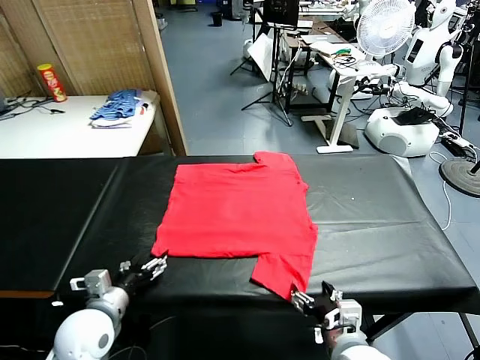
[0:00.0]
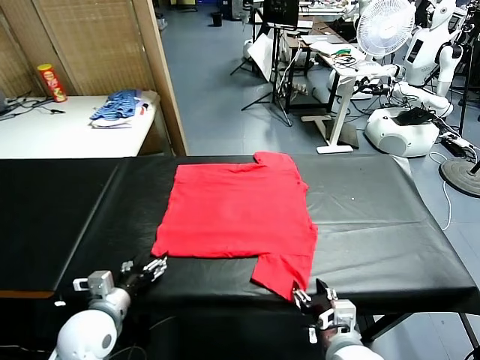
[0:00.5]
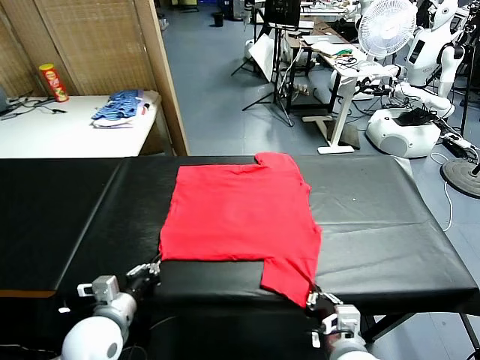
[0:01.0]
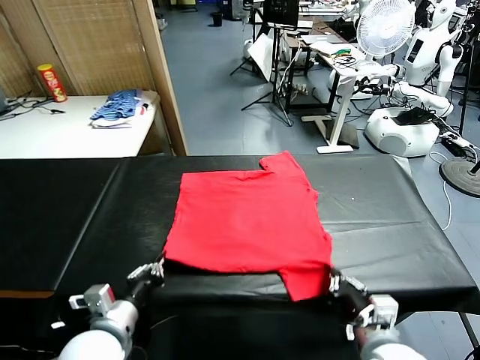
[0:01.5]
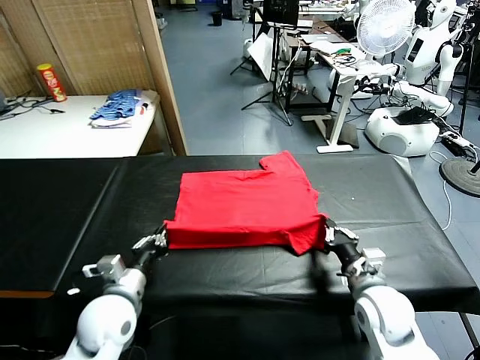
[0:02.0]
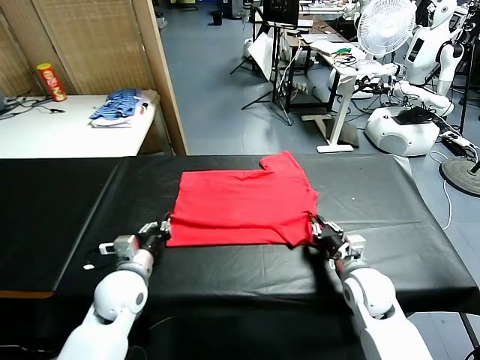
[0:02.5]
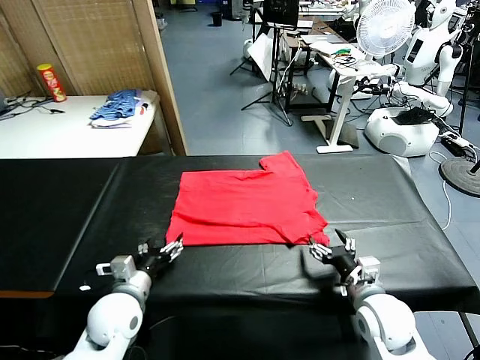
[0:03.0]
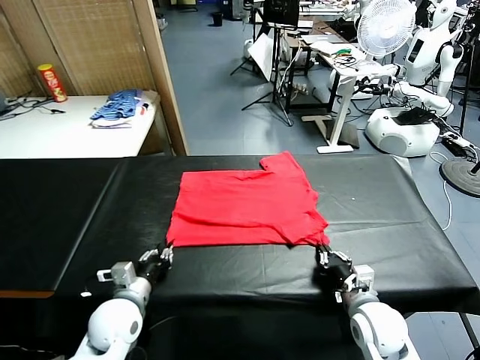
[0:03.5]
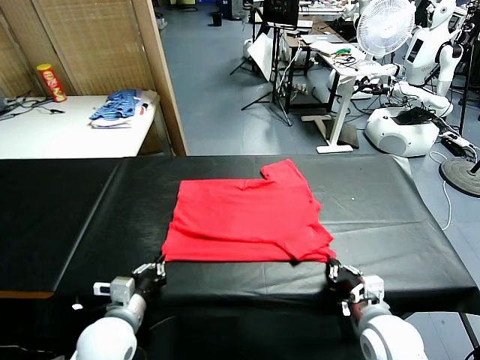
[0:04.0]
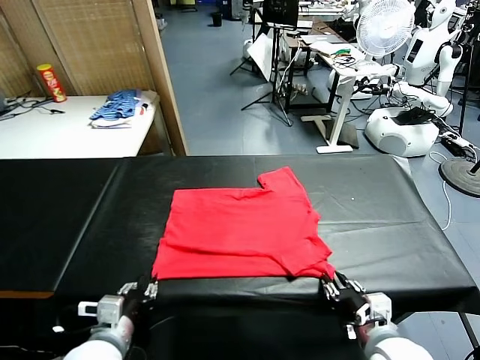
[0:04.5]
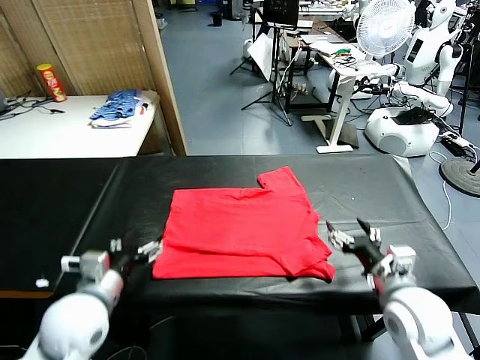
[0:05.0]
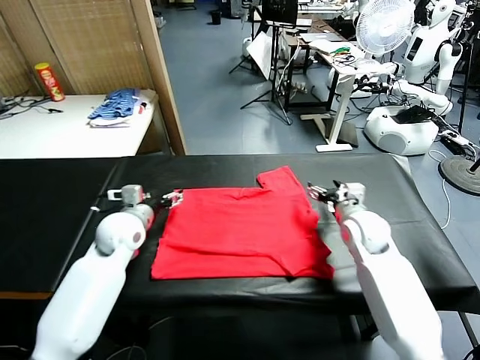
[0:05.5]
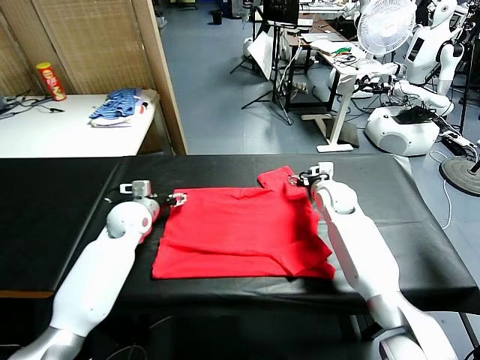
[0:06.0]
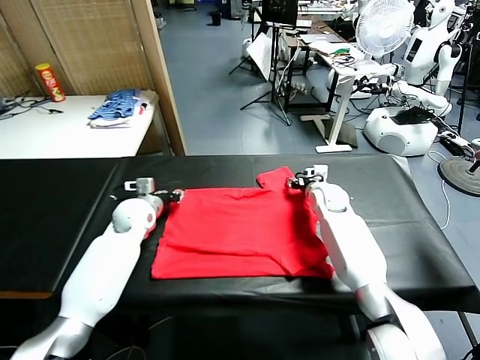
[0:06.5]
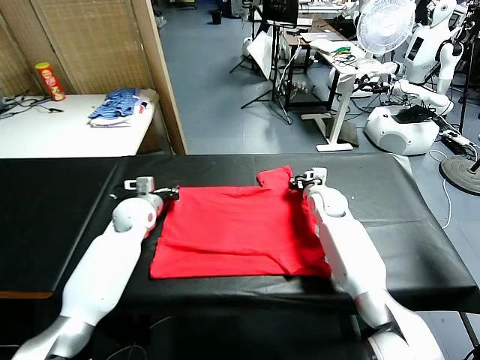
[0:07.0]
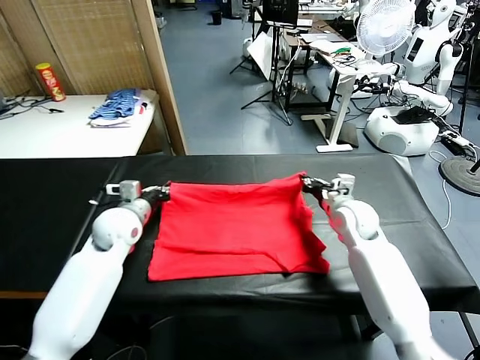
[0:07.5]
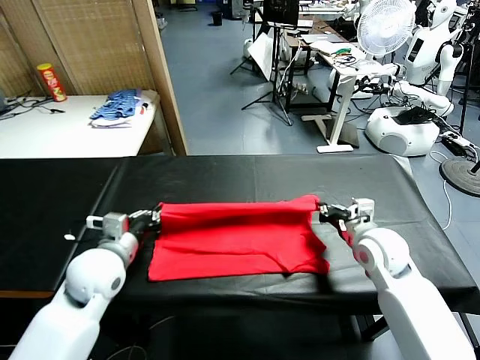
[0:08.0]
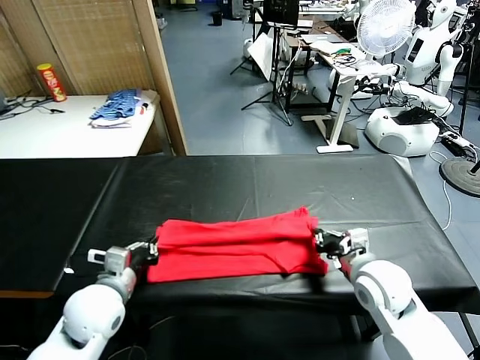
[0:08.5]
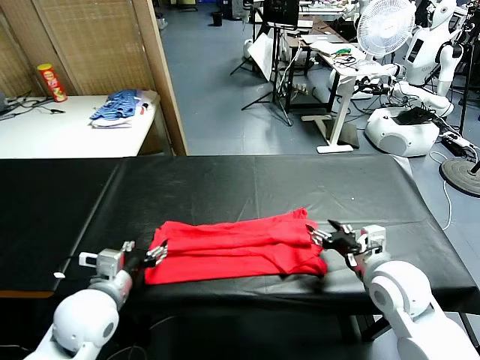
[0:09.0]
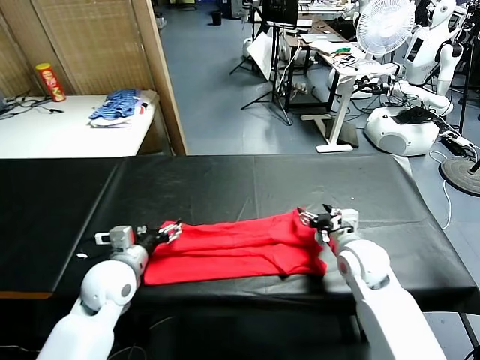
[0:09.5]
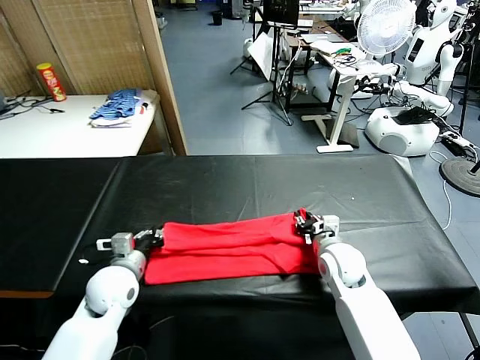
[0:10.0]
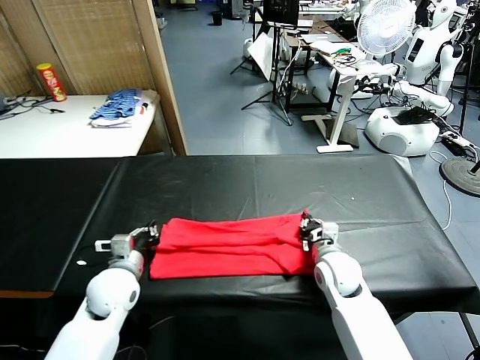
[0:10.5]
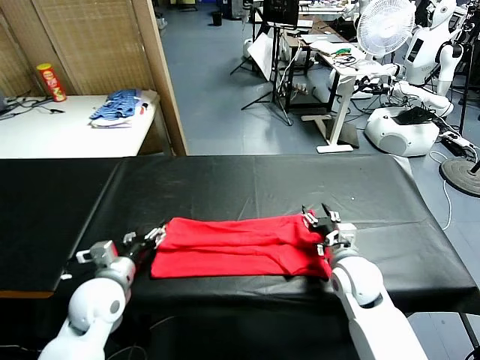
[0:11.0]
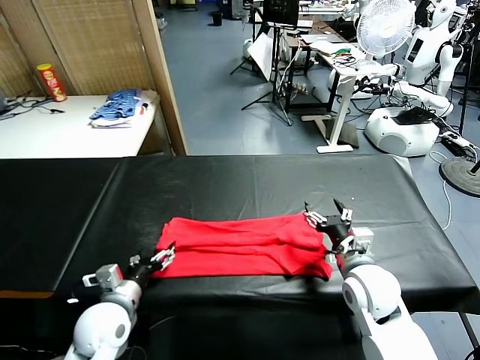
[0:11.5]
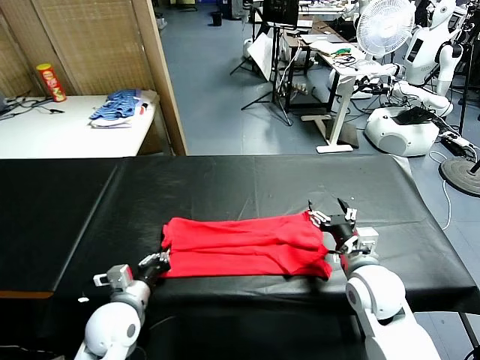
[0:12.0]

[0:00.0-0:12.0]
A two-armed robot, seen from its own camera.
Task of the whole recording: fold and organize the clothes.
Step, 0:00.0 to 0:01.0: use both grippers simultaneously to clamp the lower edge of the clothing fabric.
Step, 0:01.5 to 0:02.5: use both grippers to drag the lower edge of the fabric forward and fold it over the upper edge.
Step, 0:03.0 to 0:04.5: Drag the clothes downward with both gripper.
Step, 0:05.0 to 0:07.0: use both grippers simultaneously to clamp the upper edge of the clothing fabric.
Step, 0:07.5 to 0:09.0: use both grippers to drag the upper edge of the fabric backward and fold it over the lower edge.
0:02.0 to 0:04.0: The left gripper goes forward and returns, roughly 5 cm each way, and opens and closes again. The right gripper is displaced backward by approximately 10 cm, and opens and closes again.
0:04.0 to 0:06.0: Both grippers move forward, some 30 cm. The left gripper opens up, while the right gripper opens its fingers.
0:06.0 to 0:08.0: The grippers both shift backward by about 20 cm. The left gripper closes its fingers, while the right gripper closes up.
0:08.0 to 0:10.0: The left gripper goes some 10 cm downward, goes backward and returns, some 10 cm each way, and opens and closes again; the right gripper shifts roughly 10 cm downward and to the left, and opens, then closes once more.
0:10.0 to 0:12.0: The left gripper shifts approximately 5 cm backward, and opens, then closes again, while the right gripper goes approximately 10 cm backward and upward, and opens up.

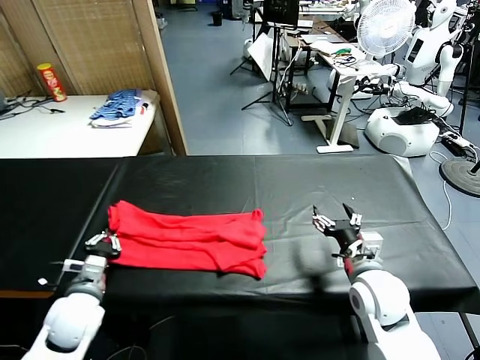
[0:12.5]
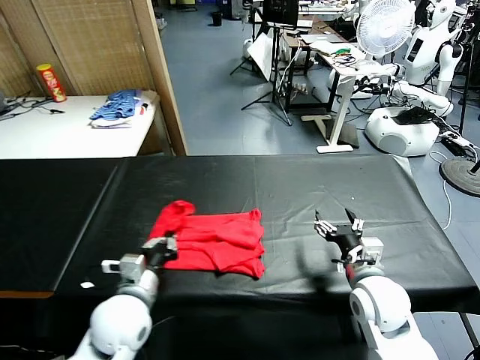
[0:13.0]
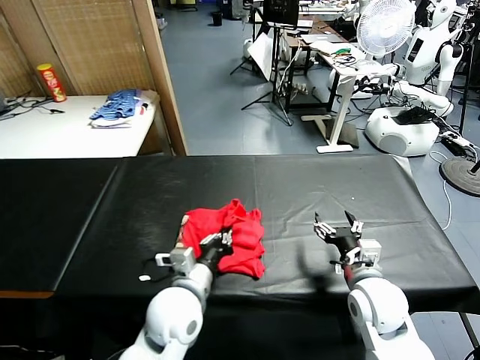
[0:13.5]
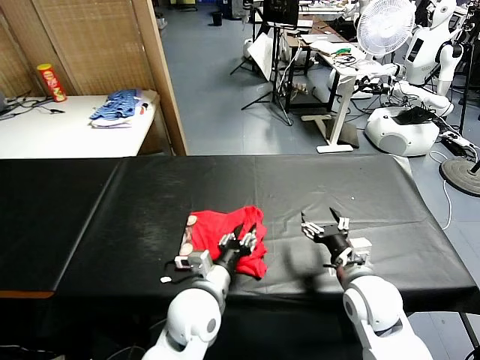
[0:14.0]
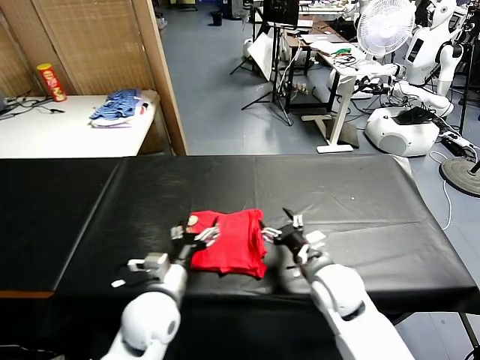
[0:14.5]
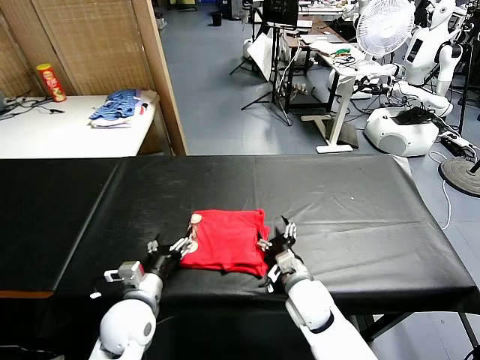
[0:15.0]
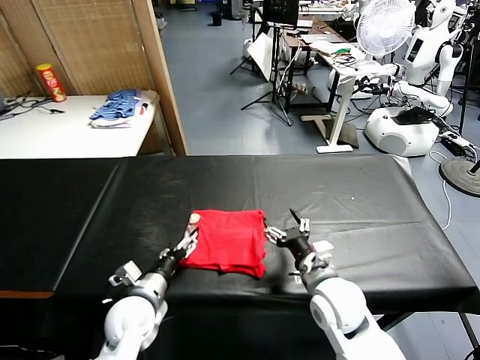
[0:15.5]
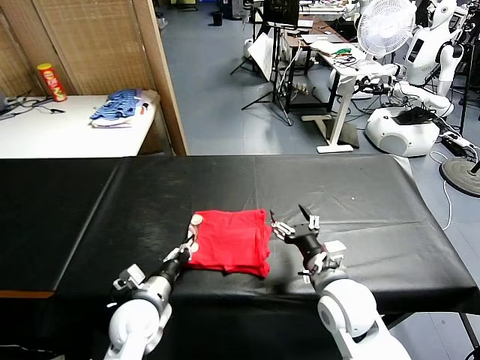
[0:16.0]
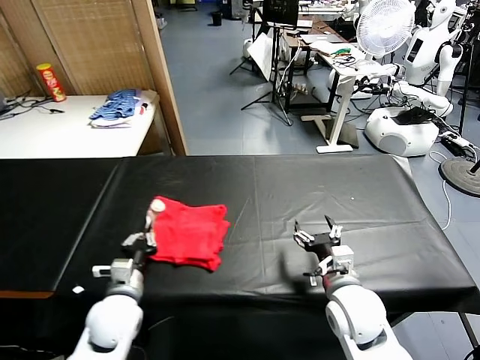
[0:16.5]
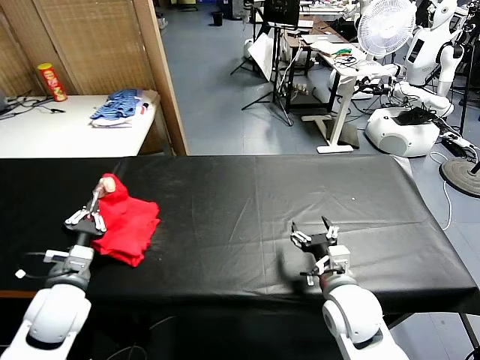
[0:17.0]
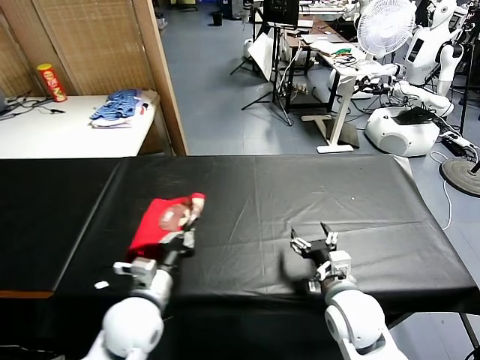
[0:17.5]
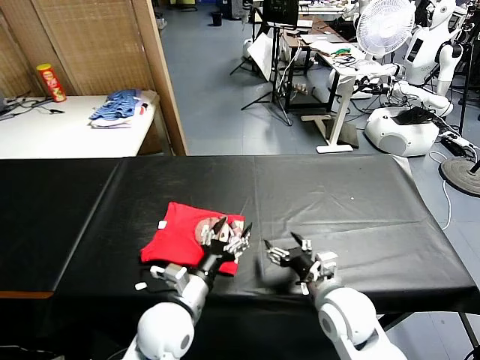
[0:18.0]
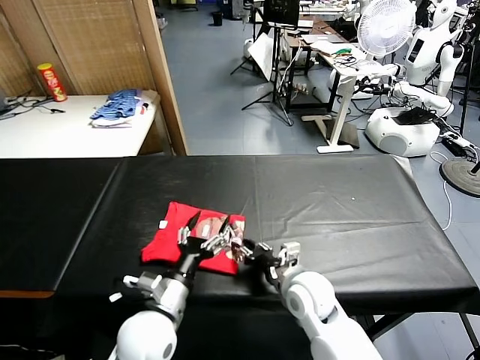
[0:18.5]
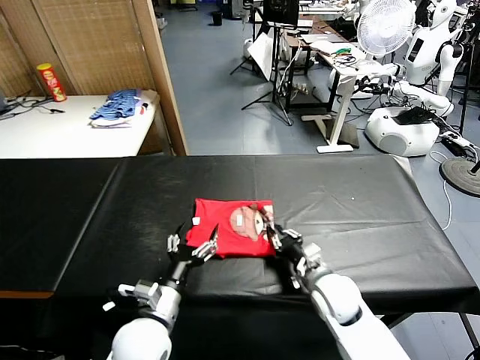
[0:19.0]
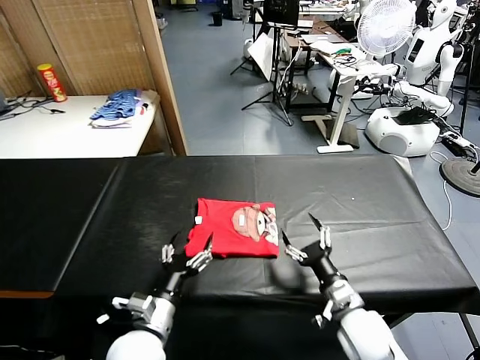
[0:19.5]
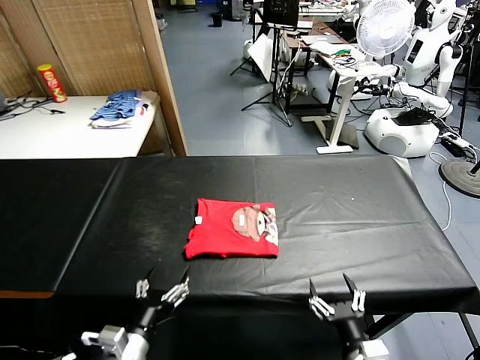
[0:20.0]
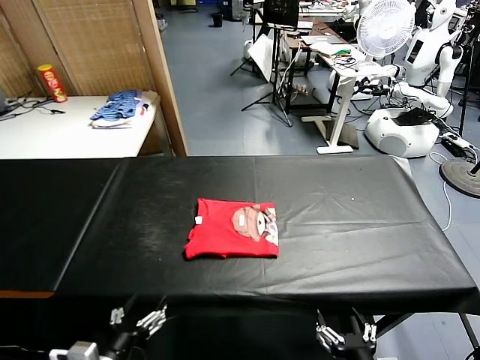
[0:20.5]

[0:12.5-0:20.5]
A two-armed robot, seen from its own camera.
Task of the whole recording: fold and organize the clothes.
Step, 0:12.5 to 0:14.0: use the left gripper to drag the left edge of the fabric to the left and folds it over the right edge.
Step, 0:14.5 to 0:17.5: Flip the folded clothes over with left gripper.
Step, 0:18.0 to 0:19.0: Drag the clothes to the center of the table.
0:12.5 to 0:14.5: The right gripper shifts about 5 cm to the left; the left gripper travels to the right by about 15 cm, and opens up.
0:14.5 to 0:16.5: The right gripper is displaced backward by approximately 5 cm, and reaches approximately 5 cm downward, then returns; the left gripper moves to the left, about 10 cm, and closes.
0:16.5 to 0:18.5: The left gripper moves to the right, some 10 cm, and opens its fingers. The right gripper shifts about 5 cm to the left, and closes.
0:18.5 to 0:20.5: The left gripper shifts some 15 cm backward and to the left, while the right gripper shifts about 25 cm backward, and opens up.
